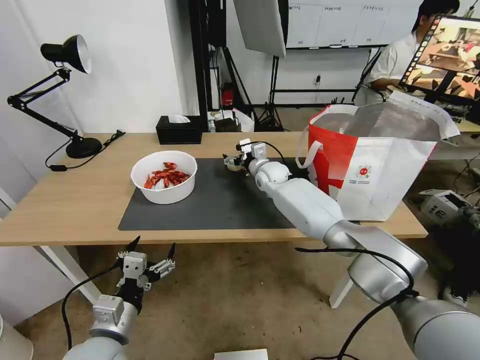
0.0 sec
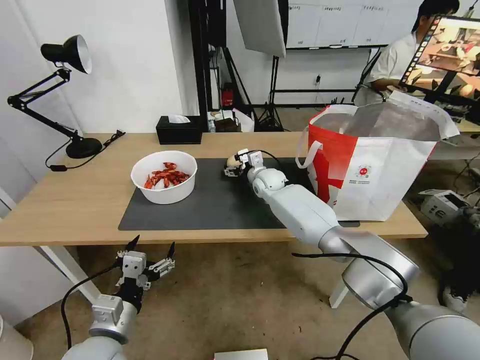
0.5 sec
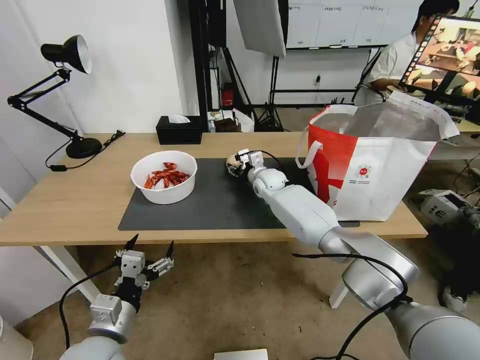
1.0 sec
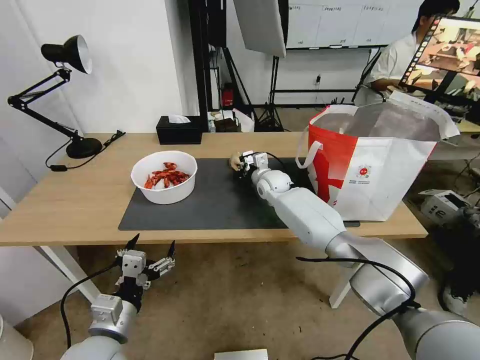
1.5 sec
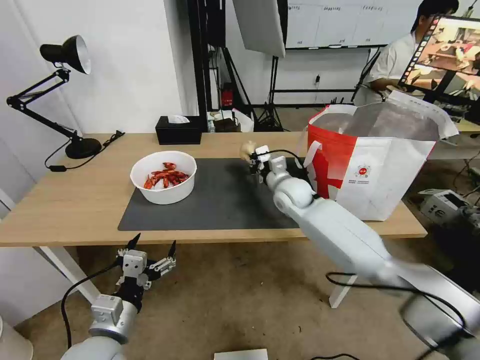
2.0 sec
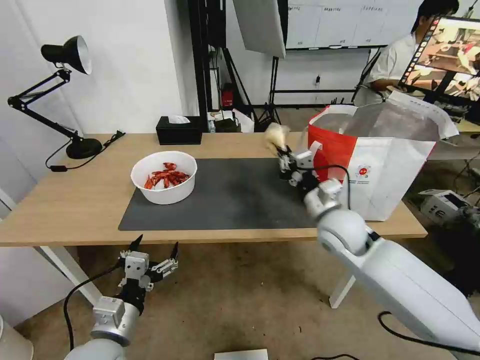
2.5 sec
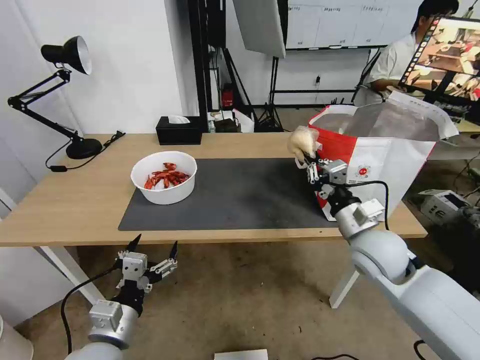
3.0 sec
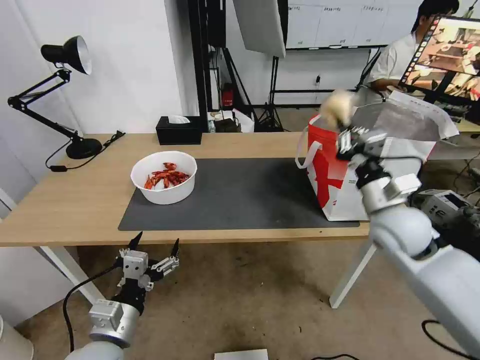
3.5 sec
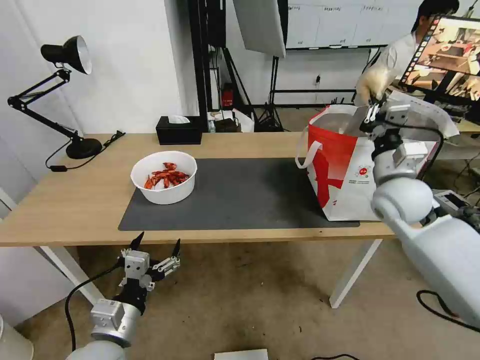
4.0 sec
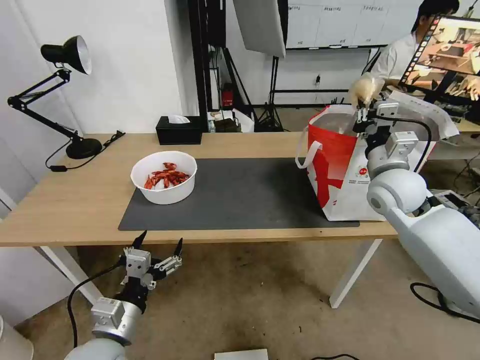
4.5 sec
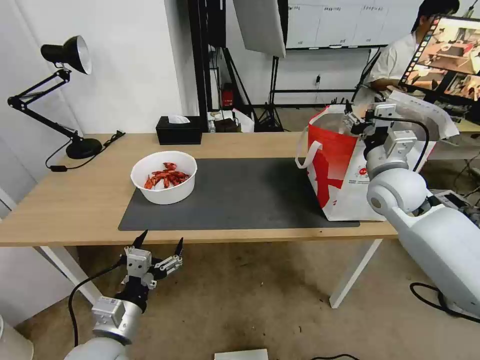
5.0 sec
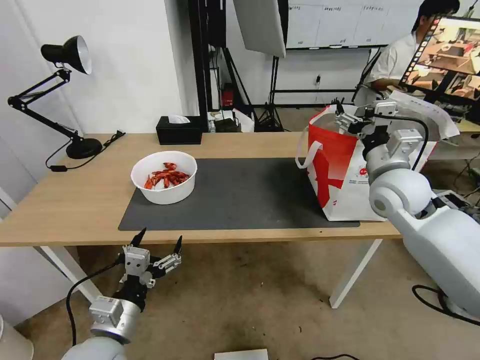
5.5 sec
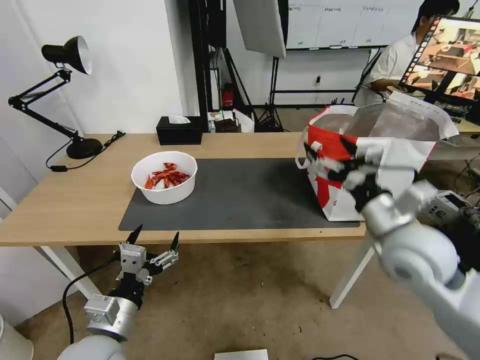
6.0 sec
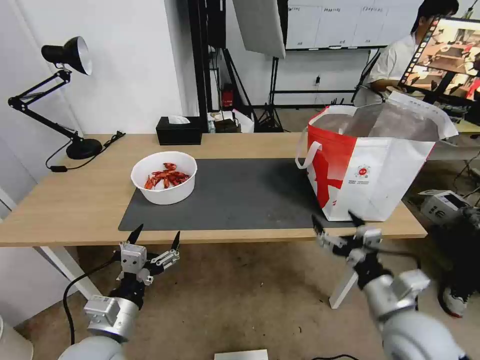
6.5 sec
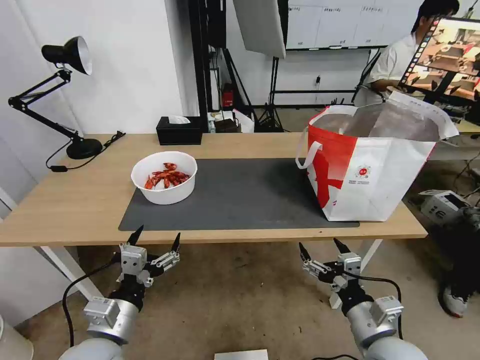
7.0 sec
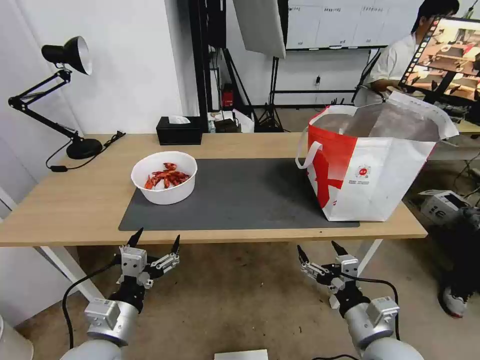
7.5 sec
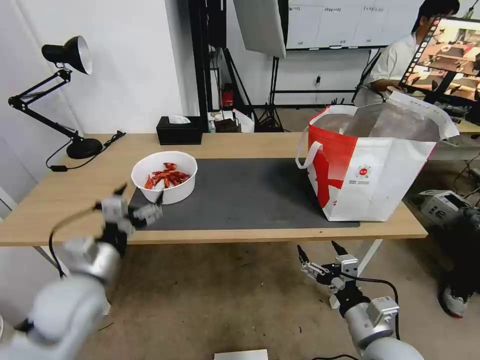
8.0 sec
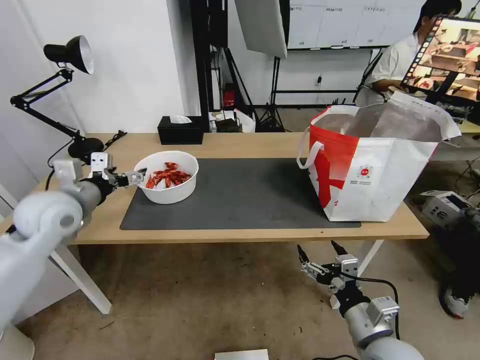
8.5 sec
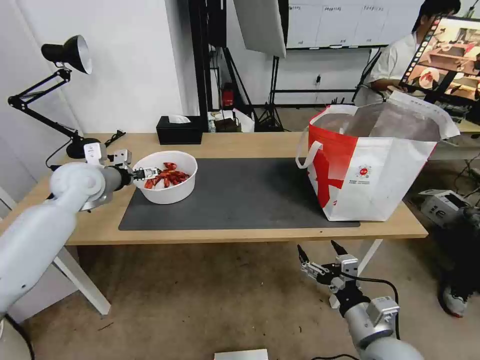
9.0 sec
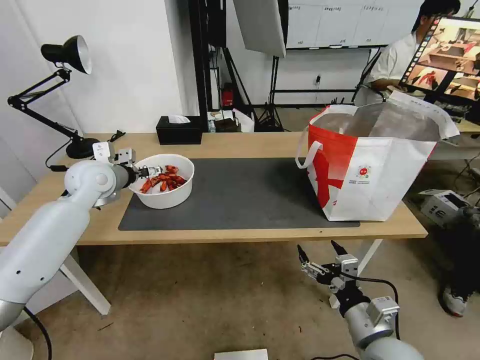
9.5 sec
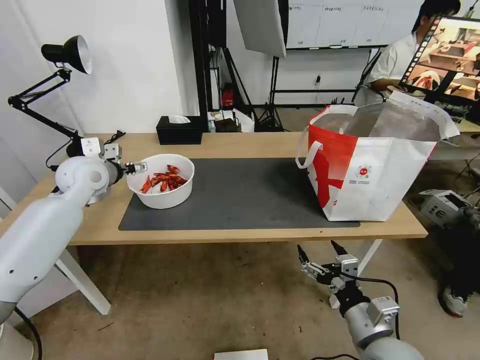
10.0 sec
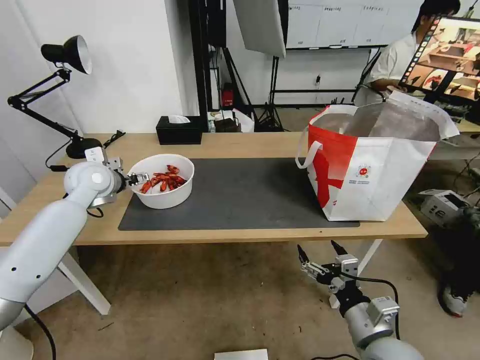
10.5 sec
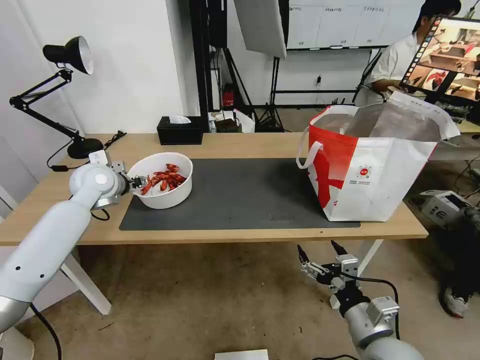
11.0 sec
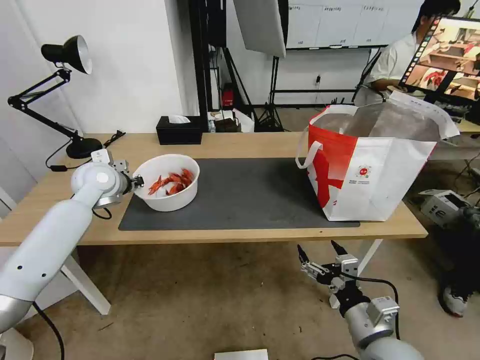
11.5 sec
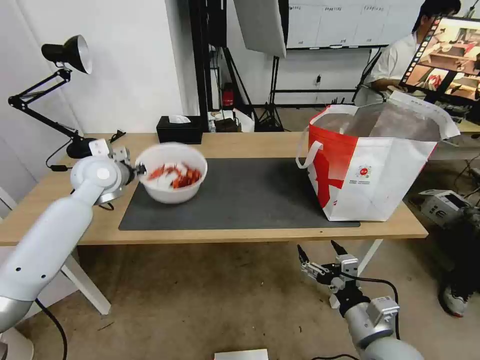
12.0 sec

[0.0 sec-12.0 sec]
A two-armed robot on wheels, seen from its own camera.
Task of the whole recording: Pick up the trash from the table and place it into the takeout bag.
0.0 sec to 2.0 sec: The right gripper is displaced backward by approximately 10 cm, and closes up.
2.0 sec to 4.0 sec: The right gripper travels to the right, backward and upward by about 25 cm.
4.0 sec to 6.0 sec: The right gripper goes some 10 cm backward, and opens up.
6.0 sec to 8.0 sec: The right gripper shifts approximately 20 cm downward and backward, while the left gripper goes about 10 cm forward and upward.
8.0 sec to 10.0 sec: The left gripper travels forward by roughly 25 cm.
10.0 sec to 12.0 sec: The left gripper closes its fingers.

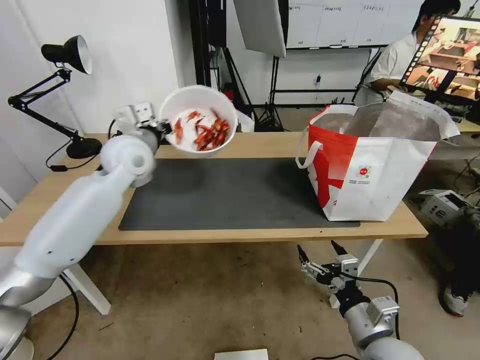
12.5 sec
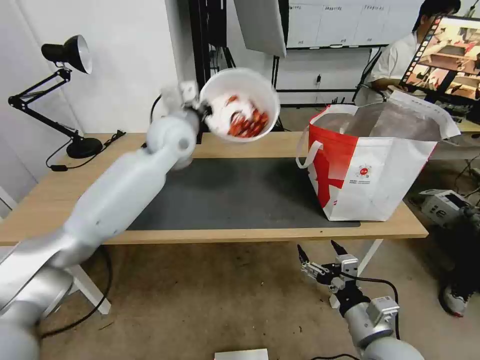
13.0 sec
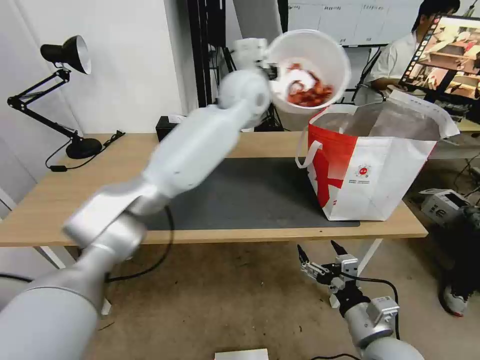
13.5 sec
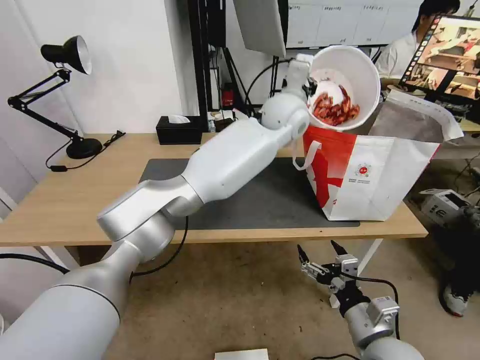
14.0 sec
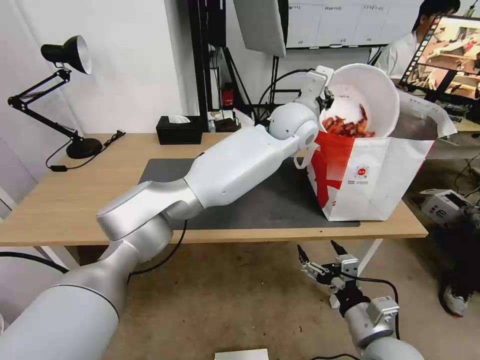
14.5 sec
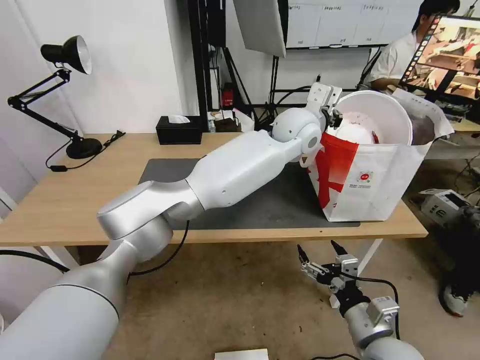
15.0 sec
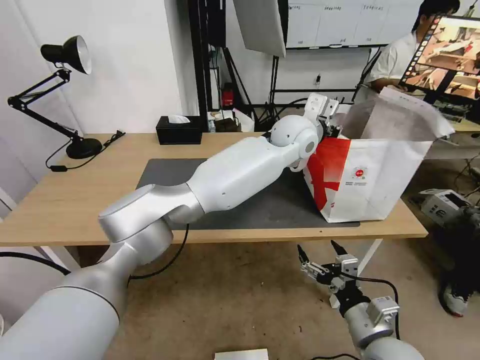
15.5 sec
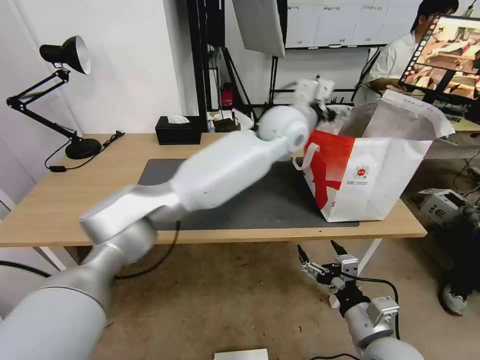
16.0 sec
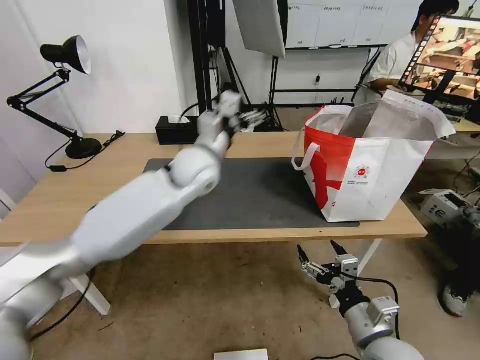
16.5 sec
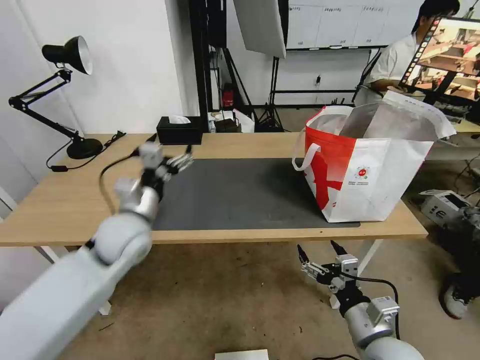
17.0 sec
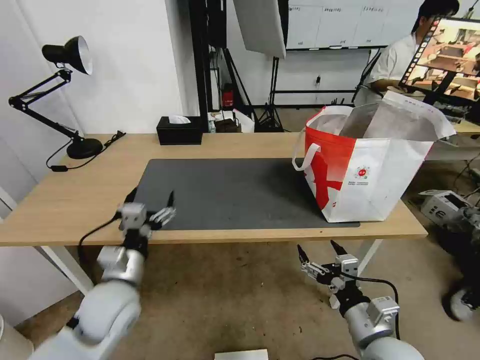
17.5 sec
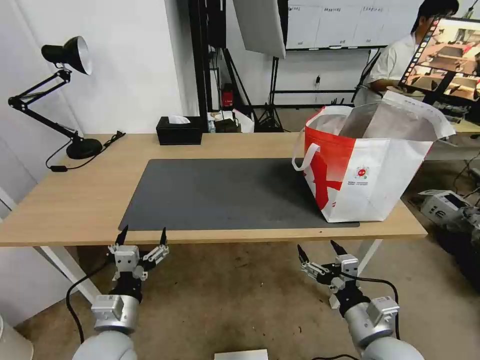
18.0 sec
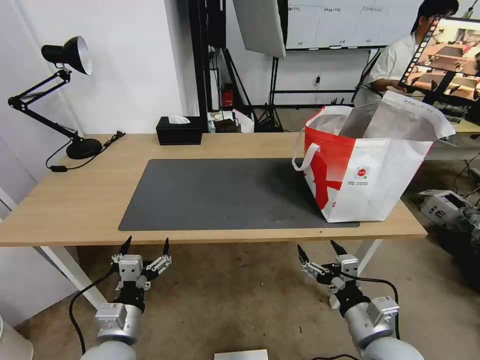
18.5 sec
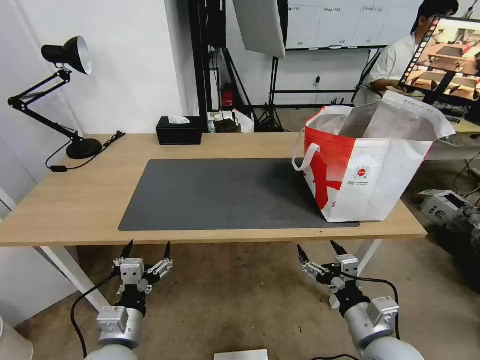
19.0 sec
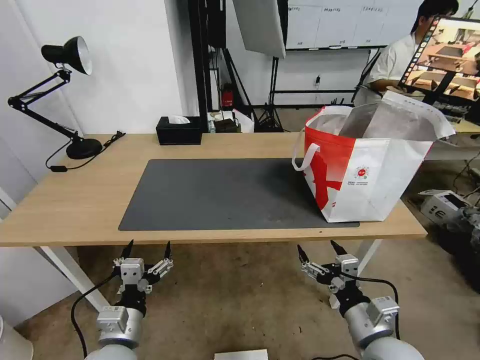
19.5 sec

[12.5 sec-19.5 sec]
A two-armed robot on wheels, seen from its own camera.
Task of the whole recording: Pick up the trash from the table and place it into the takeout bag.
12.5 sec to 14.5 sec: The left gripper shifts approximately 35 cm to the right.
14.5 sec to 16.0 sec: The left gripper opens.
16.0 sec to 17.5 sec: The left gripper moves to the left, backward and downward, about 50 cm.
17.5 sec to 19.5 sec: The left gripper travels backward and downward by roughly 10 cm.
